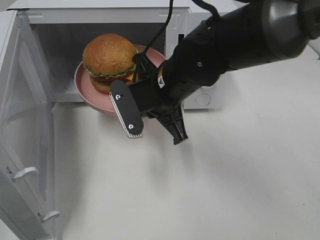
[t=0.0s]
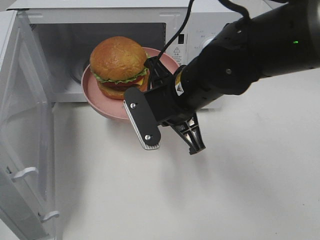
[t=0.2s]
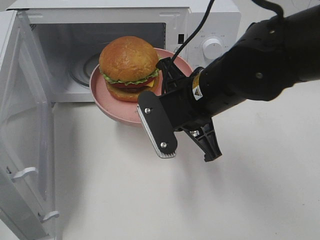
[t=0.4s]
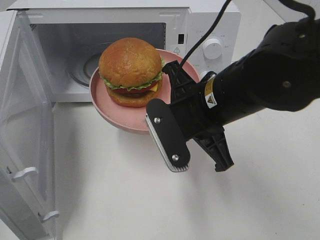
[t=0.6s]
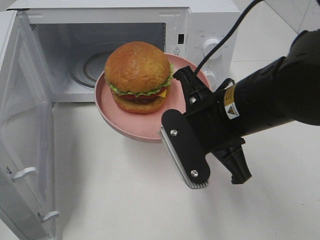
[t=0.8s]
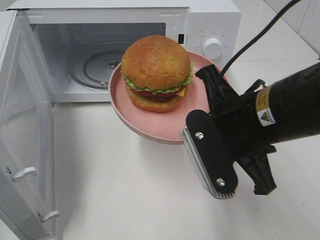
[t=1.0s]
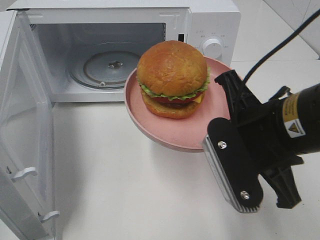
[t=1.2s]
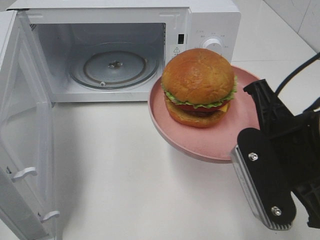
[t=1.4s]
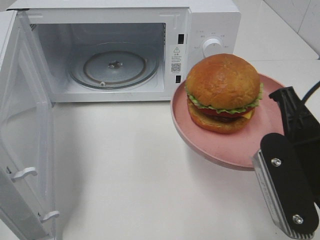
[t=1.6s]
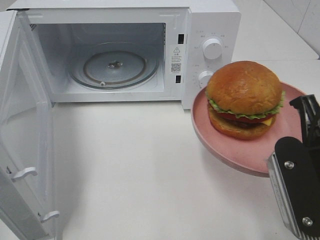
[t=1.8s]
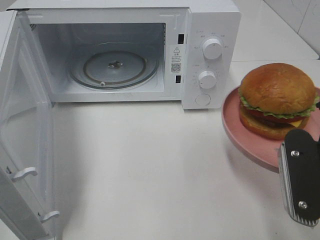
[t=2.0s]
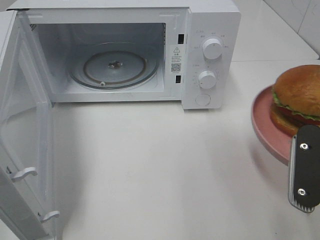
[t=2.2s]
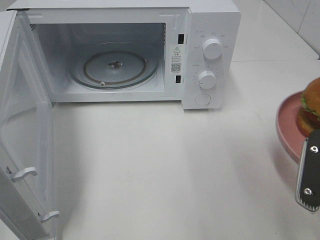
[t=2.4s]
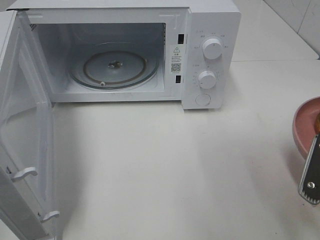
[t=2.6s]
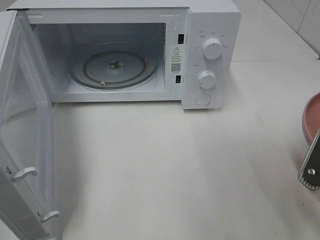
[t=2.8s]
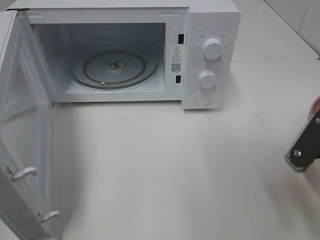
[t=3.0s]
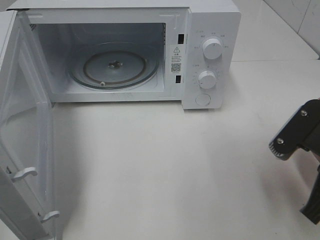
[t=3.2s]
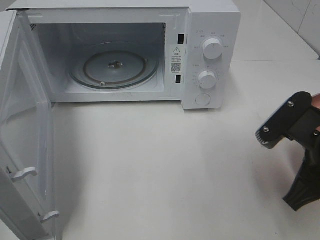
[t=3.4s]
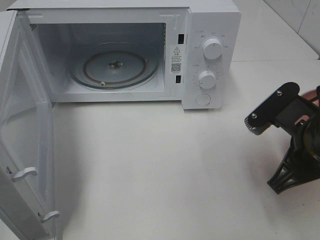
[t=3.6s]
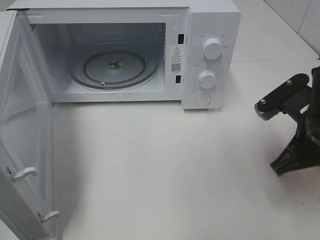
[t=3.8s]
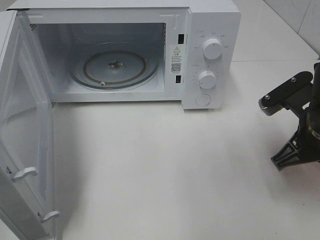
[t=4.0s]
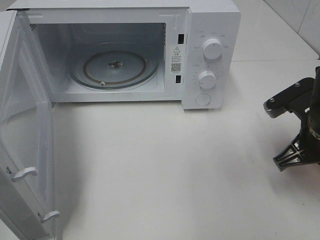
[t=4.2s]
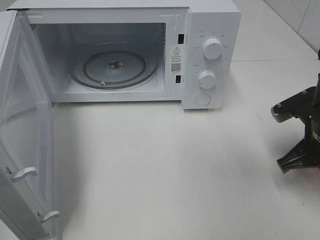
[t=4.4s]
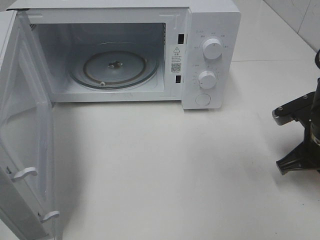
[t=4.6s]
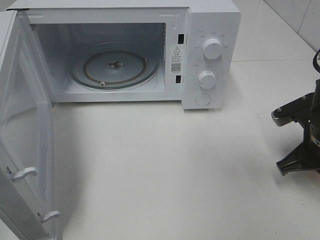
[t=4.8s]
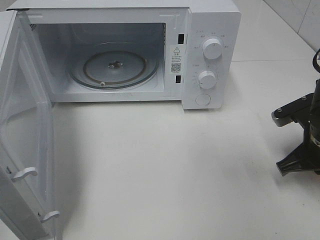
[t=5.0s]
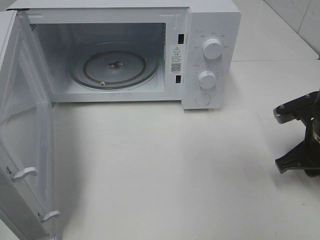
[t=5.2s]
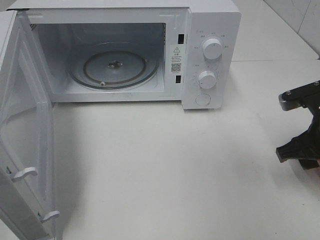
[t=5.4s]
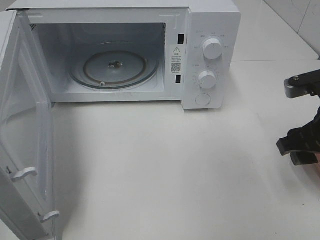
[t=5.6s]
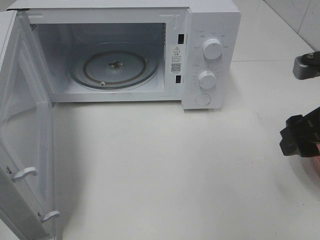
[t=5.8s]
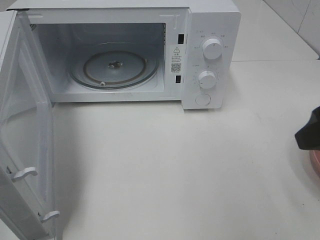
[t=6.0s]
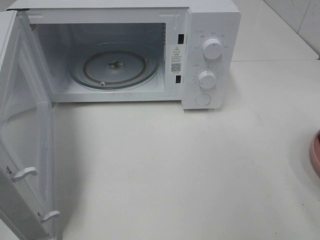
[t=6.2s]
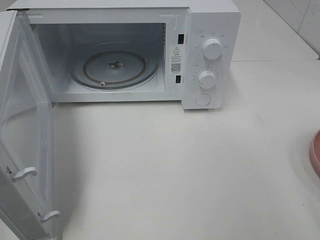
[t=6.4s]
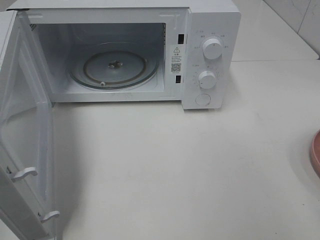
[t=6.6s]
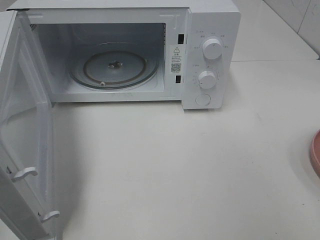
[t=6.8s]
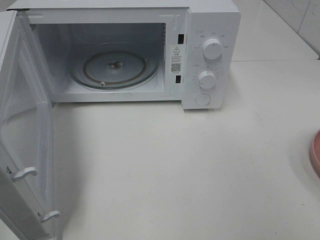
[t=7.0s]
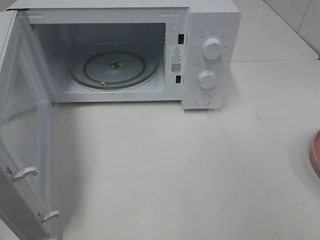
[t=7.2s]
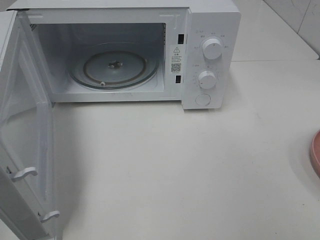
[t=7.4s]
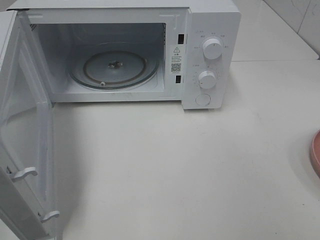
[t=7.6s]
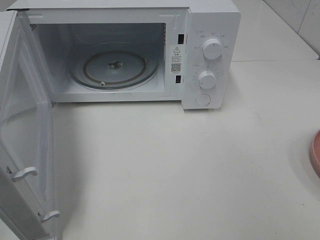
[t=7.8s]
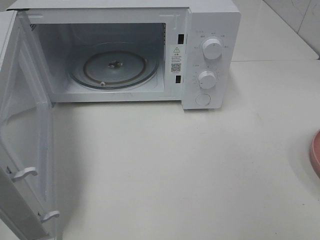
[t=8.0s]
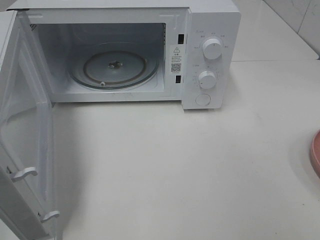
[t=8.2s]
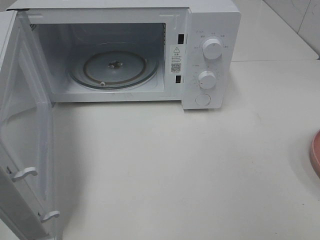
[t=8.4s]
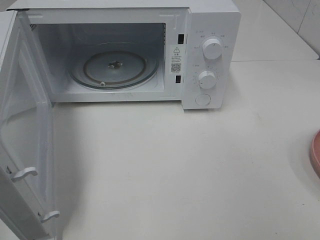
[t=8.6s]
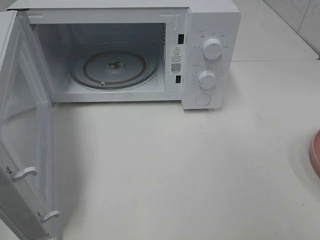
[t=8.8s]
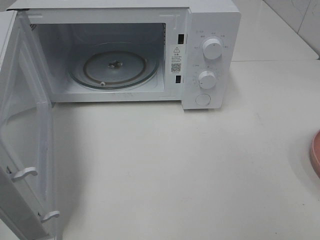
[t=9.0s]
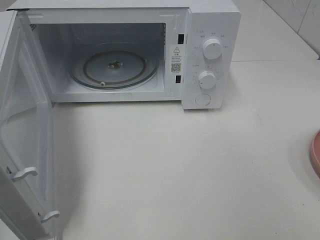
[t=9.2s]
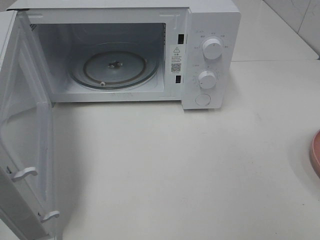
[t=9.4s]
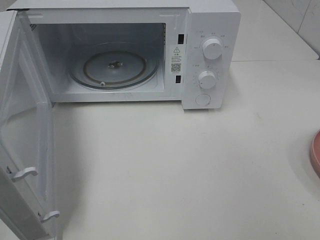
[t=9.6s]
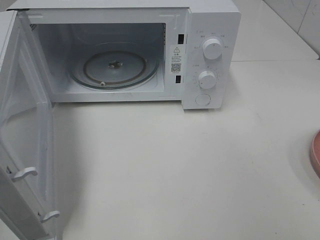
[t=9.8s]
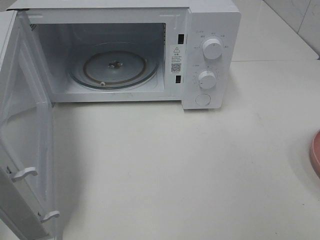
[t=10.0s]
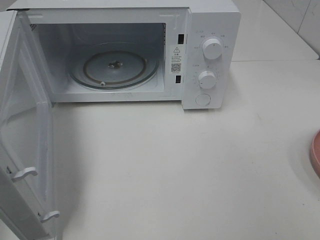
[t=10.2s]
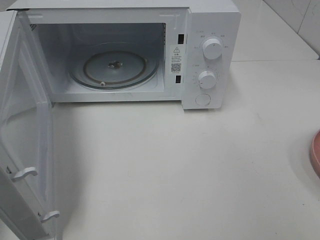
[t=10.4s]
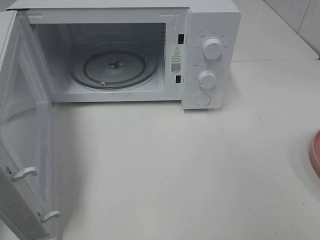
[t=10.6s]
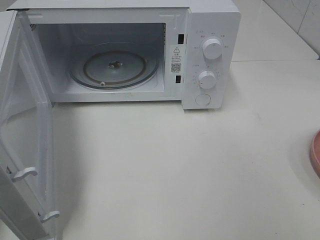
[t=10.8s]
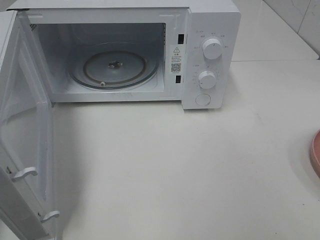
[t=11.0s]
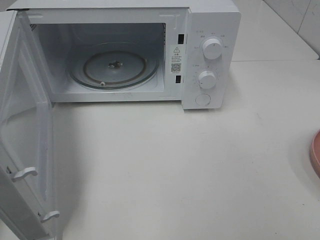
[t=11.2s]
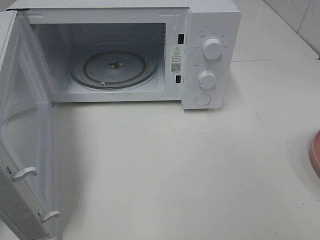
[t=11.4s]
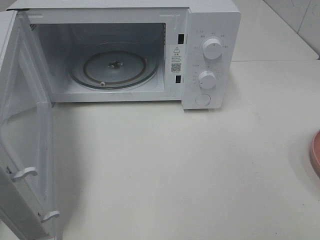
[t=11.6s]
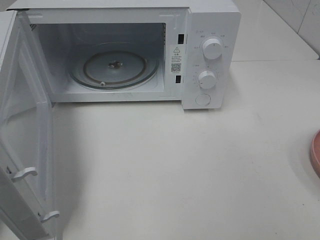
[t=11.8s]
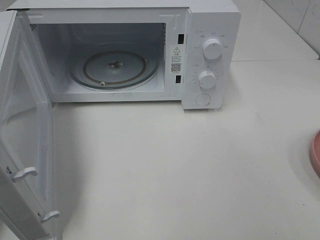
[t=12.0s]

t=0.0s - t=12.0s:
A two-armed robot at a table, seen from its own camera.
Task of the whole recording: Heat the burger.
Step, t=0.0s - t=5.0s: Right hand: place the plate on the table.
t=0.0s - t=1.6s: The right gripper shifts roughly 20 cm backward and to the right.
t=1.6s - t=3.0s: The right gripper travels to the right by approximately 5 cm.
t=3.0s - t=4.4s: The right gripper shifts approximately 10 cm forward and downward.
t=4.4s - t=6.0s: The right gripper is displaced upward and backward by approximately 15 cm, and opens.
t=6.0s - t=7.6s: The right gripper moves backward, some 15 cm.
t=7.6s - t=9.0s: Neither gripper changes place.

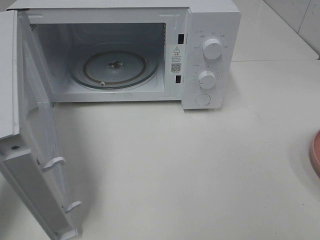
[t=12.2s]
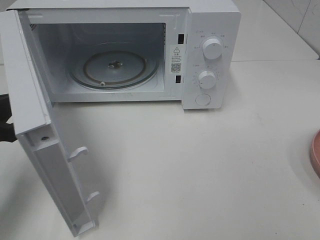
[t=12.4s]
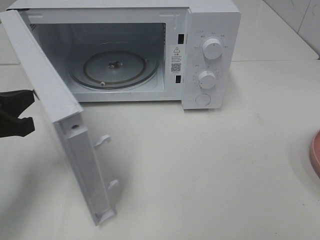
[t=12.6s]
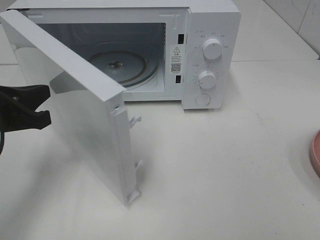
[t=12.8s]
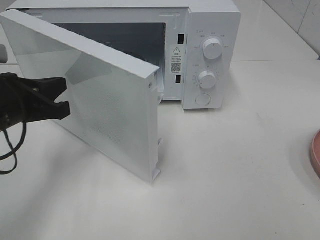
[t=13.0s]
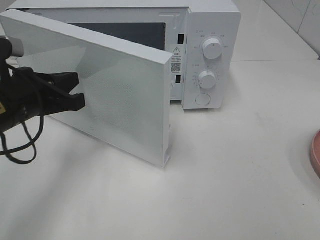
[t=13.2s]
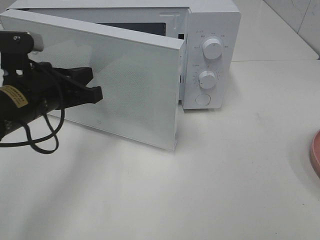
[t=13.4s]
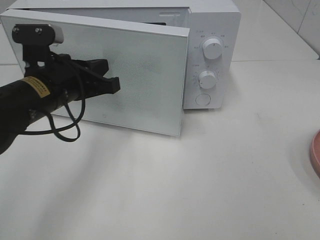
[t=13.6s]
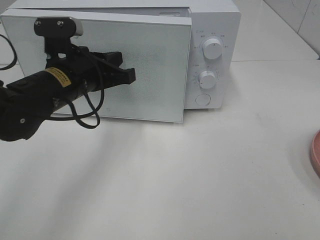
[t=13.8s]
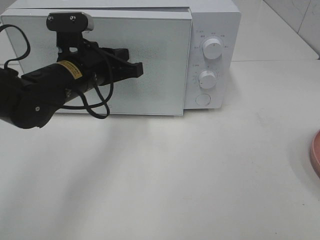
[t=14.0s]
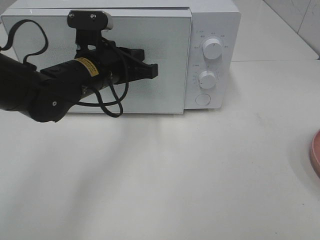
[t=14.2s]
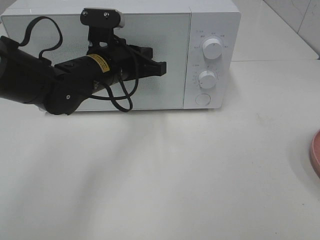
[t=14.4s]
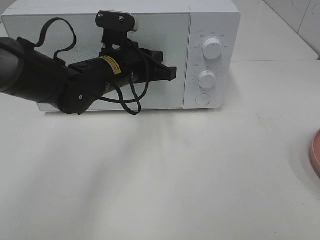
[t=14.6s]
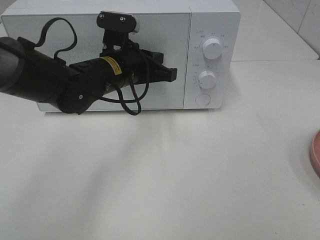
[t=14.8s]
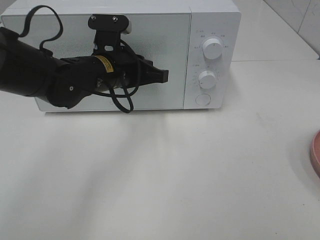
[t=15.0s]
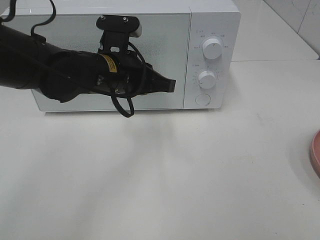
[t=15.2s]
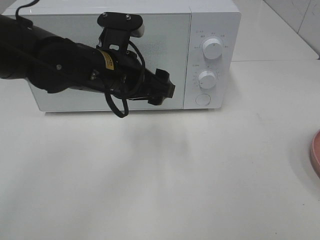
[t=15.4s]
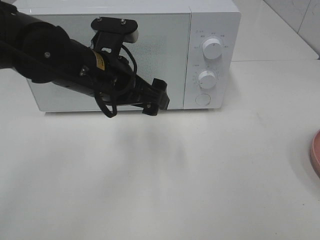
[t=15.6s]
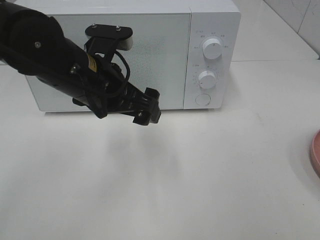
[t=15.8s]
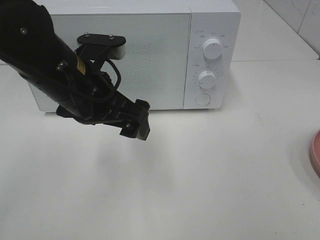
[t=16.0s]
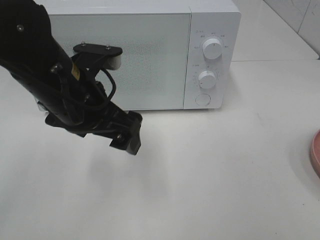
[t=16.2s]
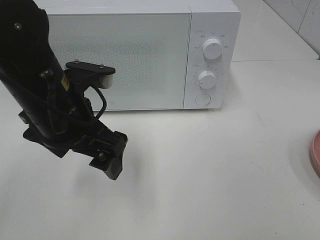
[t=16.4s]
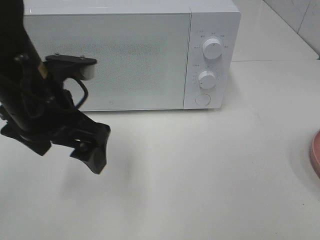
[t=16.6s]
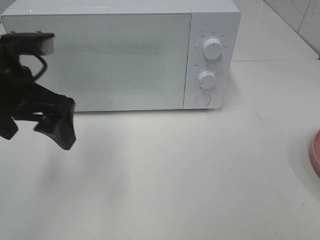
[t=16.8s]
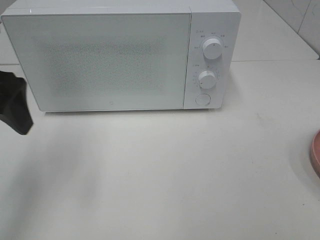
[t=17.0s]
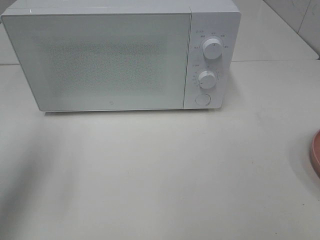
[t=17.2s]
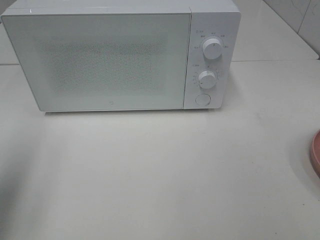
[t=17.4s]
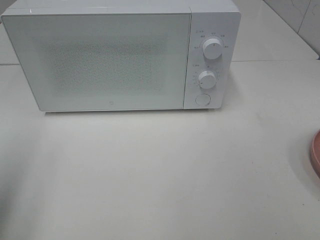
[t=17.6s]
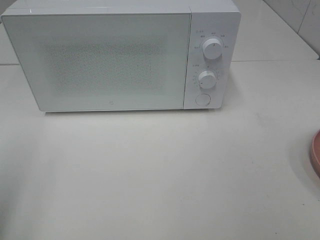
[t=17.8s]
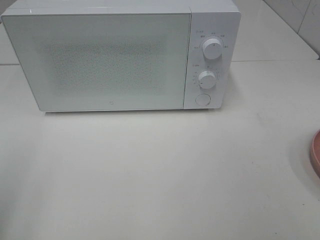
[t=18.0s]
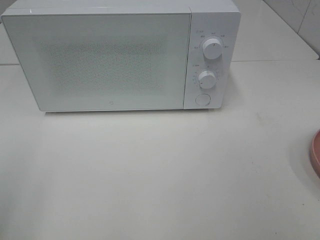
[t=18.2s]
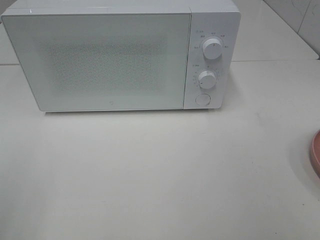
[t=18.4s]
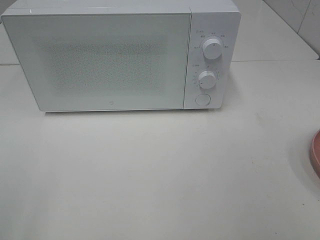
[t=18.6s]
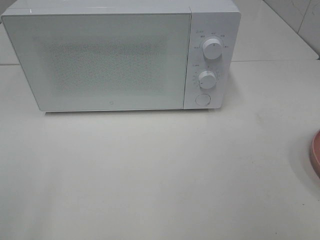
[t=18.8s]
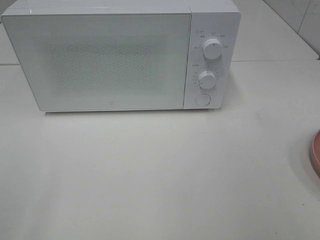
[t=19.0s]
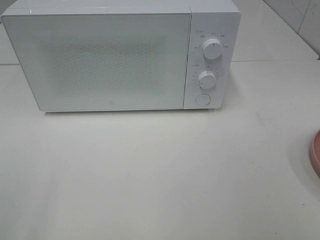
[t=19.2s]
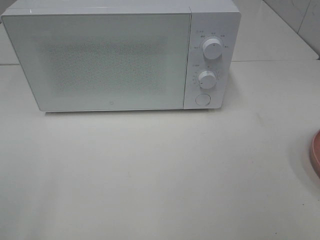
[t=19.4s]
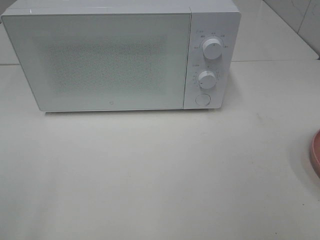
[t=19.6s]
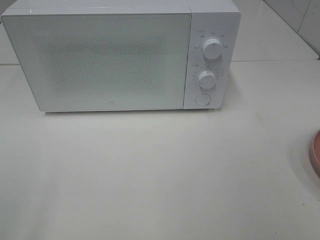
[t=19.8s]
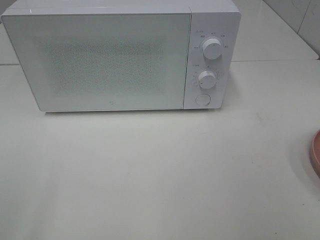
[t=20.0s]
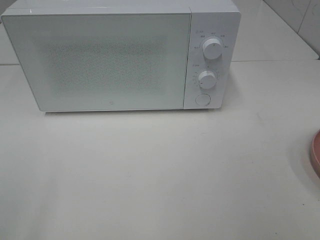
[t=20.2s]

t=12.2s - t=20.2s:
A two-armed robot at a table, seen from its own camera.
Task of the whole recording: Heat the burger.
Step, t=12.2s - t=15.0s: Left hand: close the microwave door.
t=12.2s - t=13.8s: The left gripper moves to the right and forward, approximately 20 cm.
t=13.8s - t=15.4s: The left gripper shifts some 5 cm to the right, and opens up.
t=15.4s - t=17.0s: The left gripper moves to the left and upward, some 20 cm.
t=17.0s - t=18.6s: The left gripper moves backward, about 25 cm.
t=18.6s - t=20.2s: Both grippers stay about where they are.
